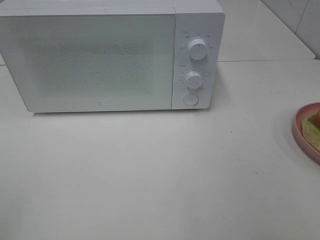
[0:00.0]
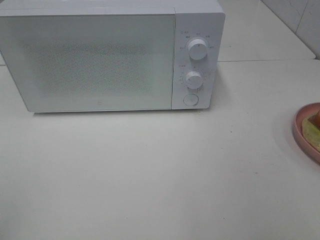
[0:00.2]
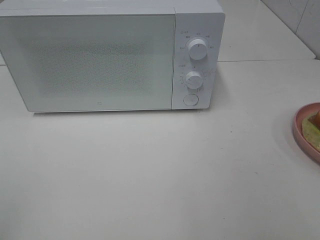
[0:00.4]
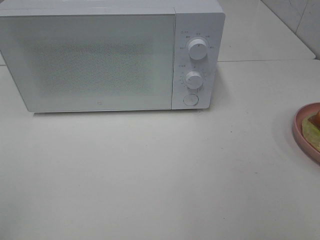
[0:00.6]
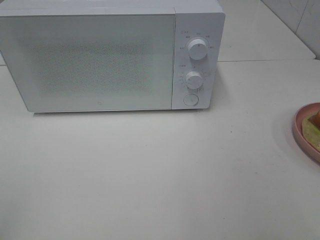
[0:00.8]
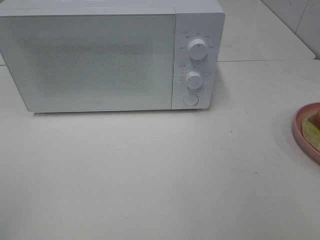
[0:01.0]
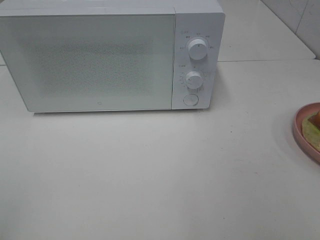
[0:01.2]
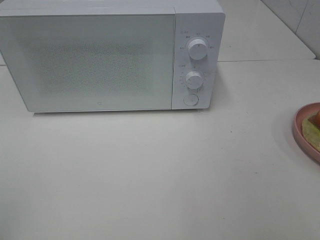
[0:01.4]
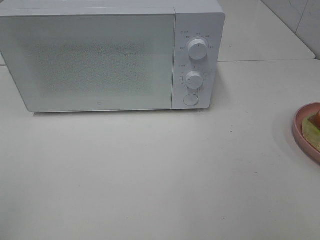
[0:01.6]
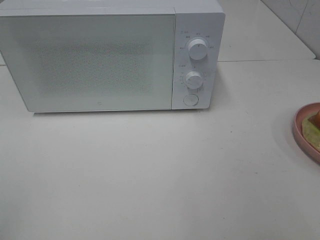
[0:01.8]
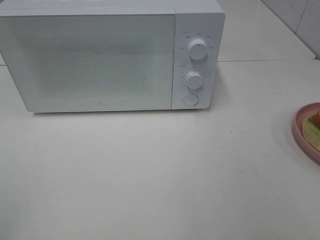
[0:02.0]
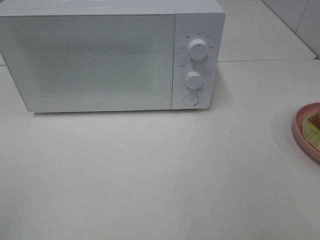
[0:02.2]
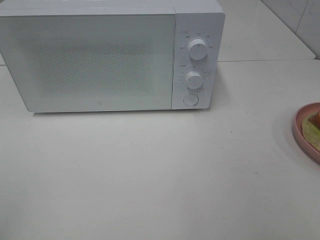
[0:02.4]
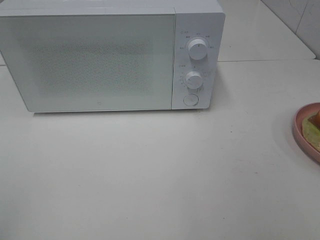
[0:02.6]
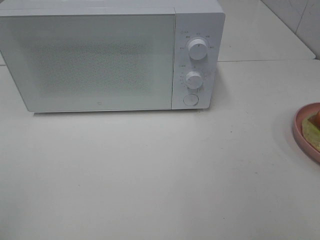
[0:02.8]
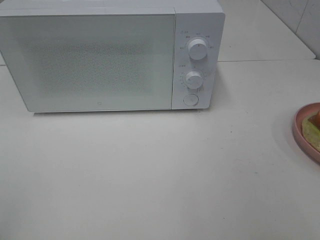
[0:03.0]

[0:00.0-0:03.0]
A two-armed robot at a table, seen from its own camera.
Task of the whole recording: Heat Sandwich.
0.0 to 3.0 s: Both grippers stay about where they are.

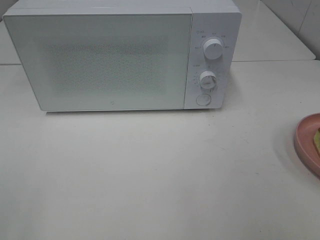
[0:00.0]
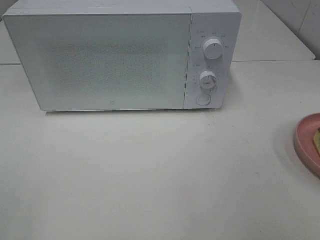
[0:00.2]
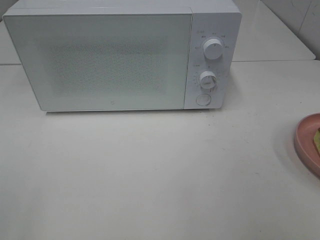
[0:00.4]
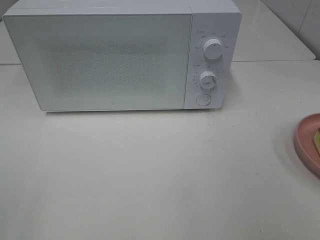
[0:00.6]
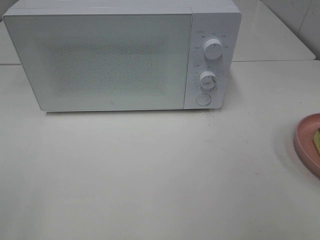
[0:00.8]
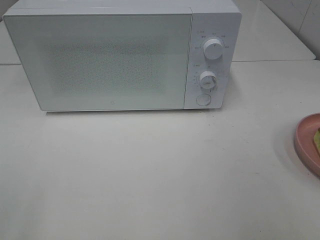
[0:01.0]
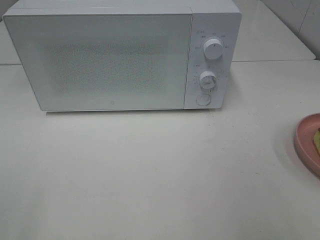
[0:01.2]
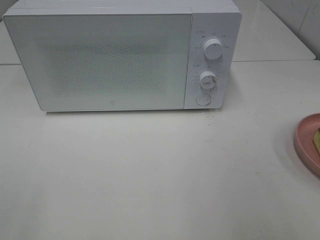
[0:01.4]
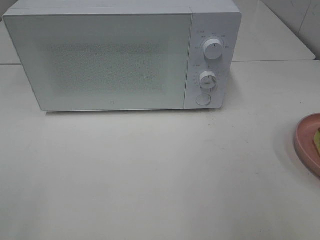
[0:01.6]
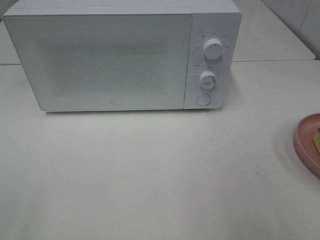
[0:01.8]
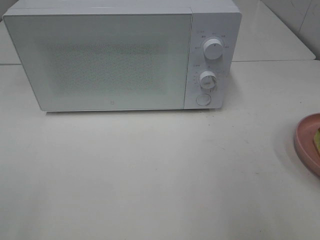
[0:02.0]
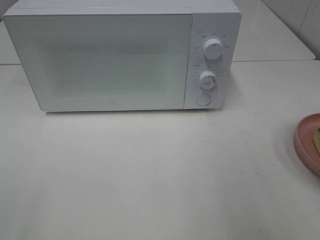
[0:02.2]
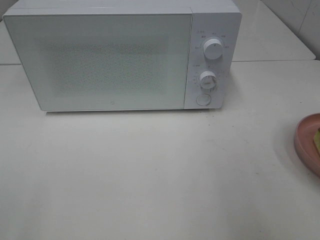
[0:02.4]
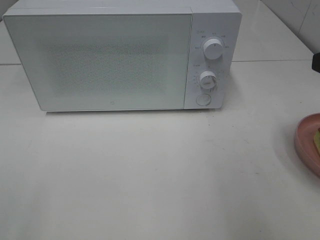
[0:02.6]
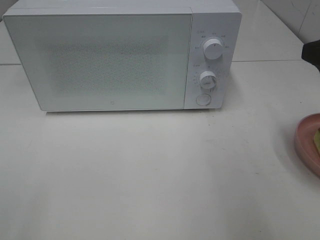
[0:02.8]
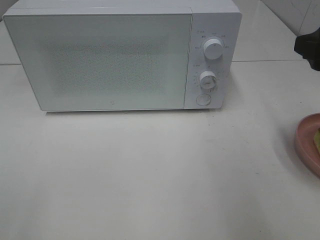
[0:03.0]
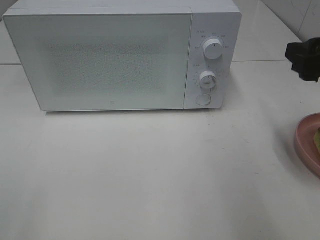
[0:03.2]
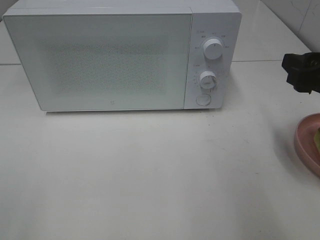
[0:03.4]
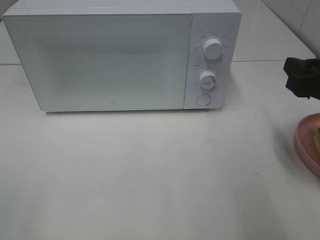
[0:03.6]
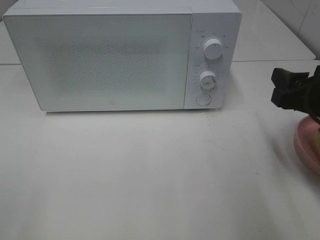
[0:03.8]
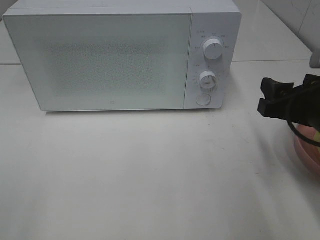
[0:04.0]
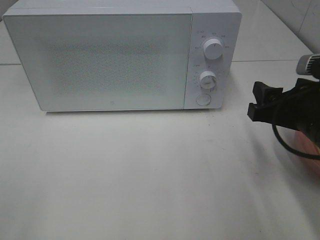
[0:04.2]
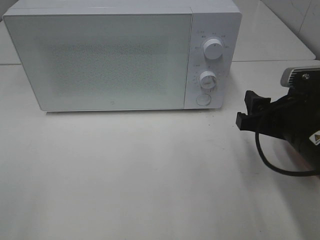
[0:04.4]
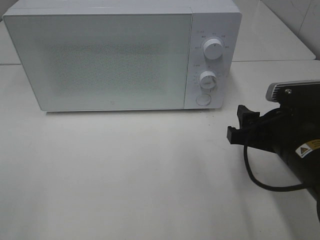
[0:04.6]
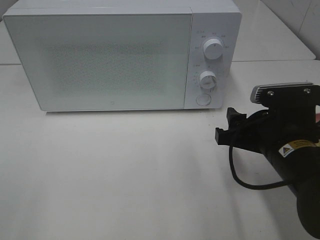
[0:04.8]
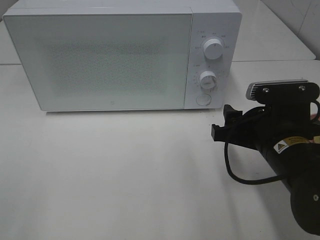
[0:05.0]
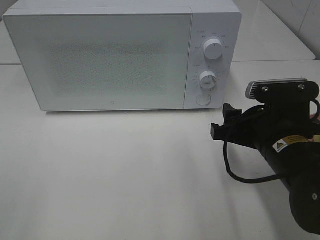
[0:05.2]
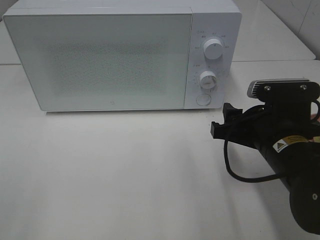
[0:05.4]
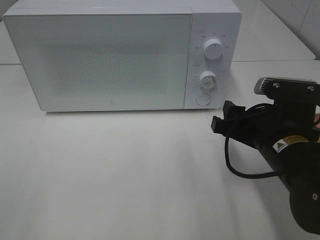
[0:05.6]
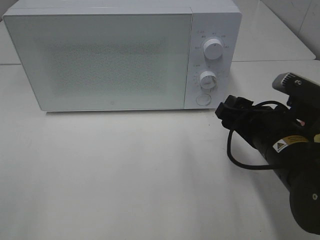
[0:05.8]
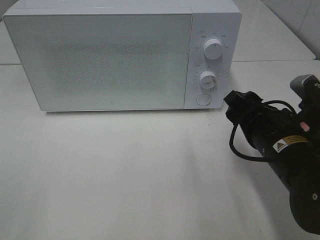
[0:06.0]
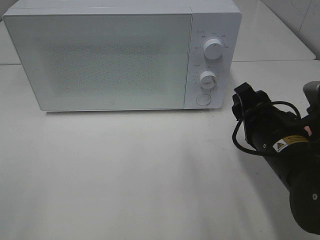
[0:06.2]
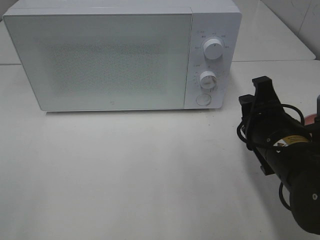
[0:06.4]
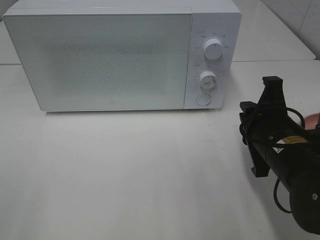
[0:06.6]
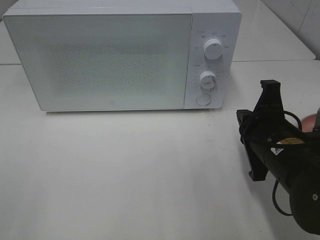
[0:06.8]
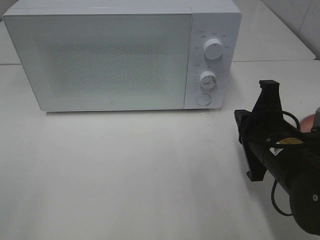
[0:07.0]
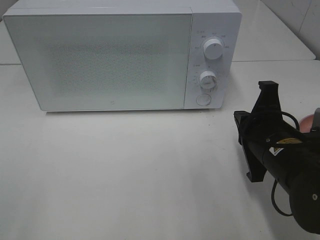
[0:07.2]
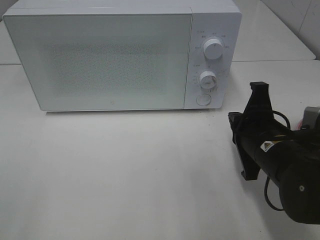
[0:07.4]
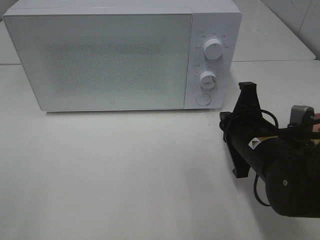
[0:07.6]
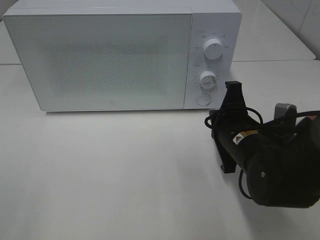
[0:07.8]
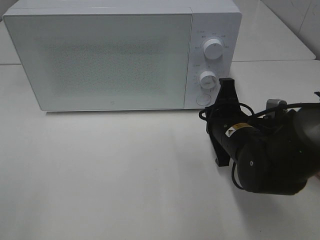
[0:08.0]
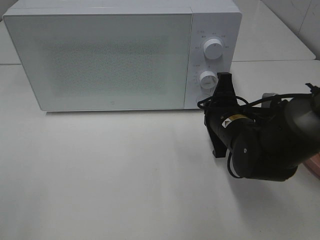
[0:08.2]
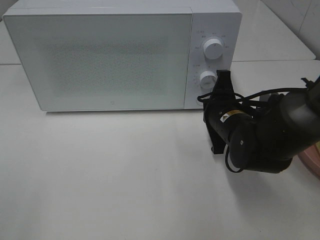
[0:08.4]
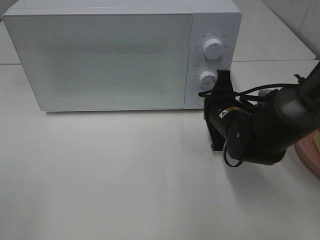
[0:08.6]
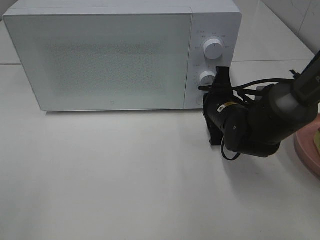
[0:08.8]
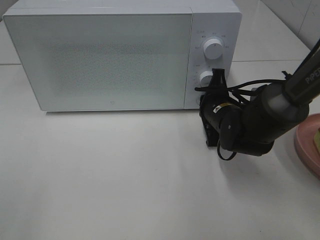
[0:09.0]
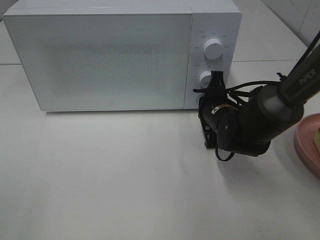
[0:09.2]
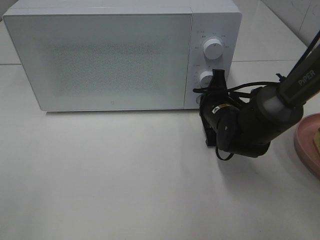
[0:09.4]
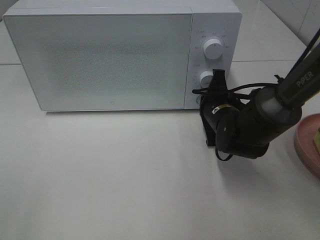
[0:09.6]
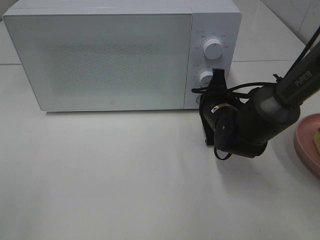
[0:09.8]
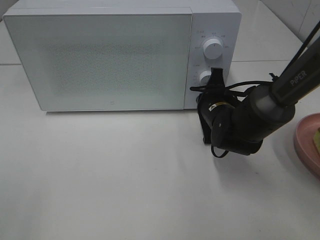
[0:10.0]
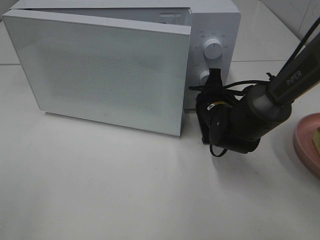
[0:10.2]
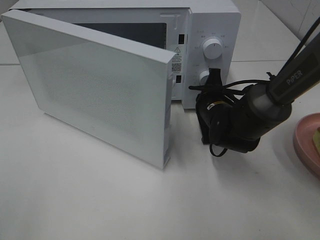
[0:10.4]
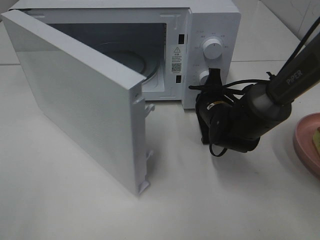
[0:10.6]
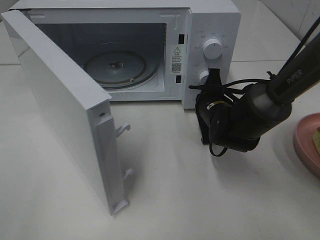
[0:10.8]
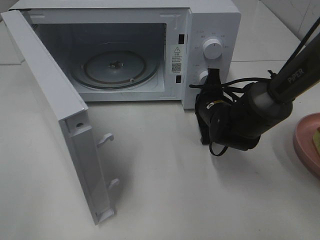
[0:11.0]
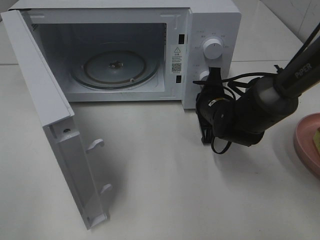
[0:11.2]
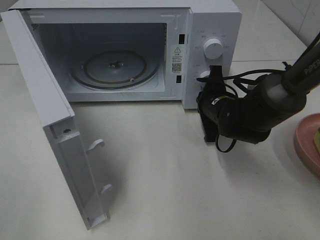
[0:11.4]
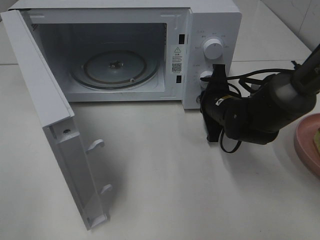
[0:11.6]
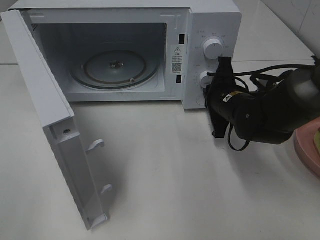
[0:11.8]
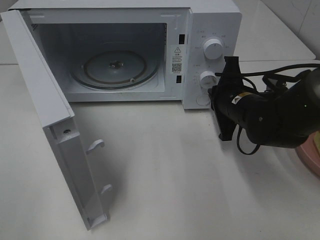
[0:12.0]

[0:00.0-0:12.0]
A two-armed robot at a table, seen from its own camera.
Task of the whole recording: Heat Sandwich.
1.6 to 3.0 s: The right gripper is displaced forward by roughly 15 cm.
3.0 to 4.4 s: The right gripper heads downward and to the left, covering some 15 cm.
6.0 to 7.6 s: The right gripper closes up.
7.6 to 9.0 s: The right gripper travels forward by approximately 10 cm.
9.0 to 10.4 s: The grippers move only a little.
10.4 to 12.0 s: The right gripper changes place by some 5 cm.

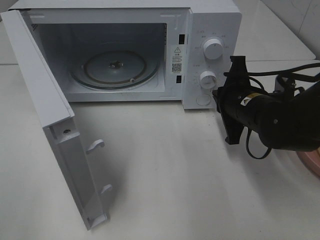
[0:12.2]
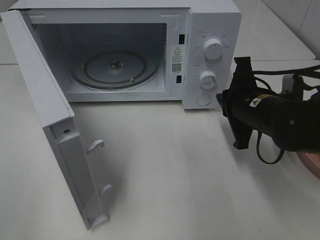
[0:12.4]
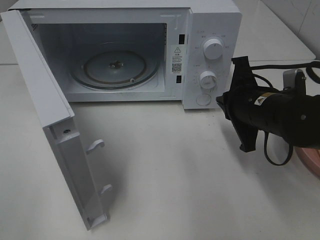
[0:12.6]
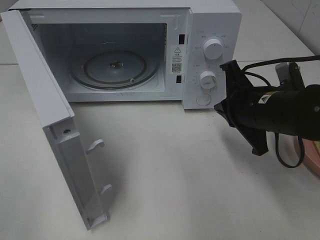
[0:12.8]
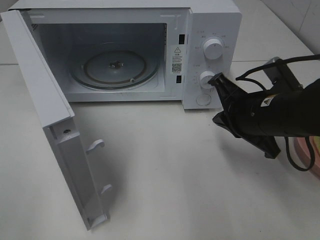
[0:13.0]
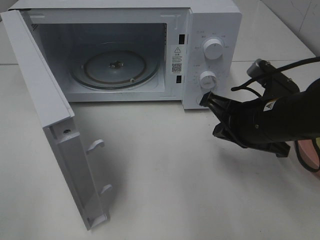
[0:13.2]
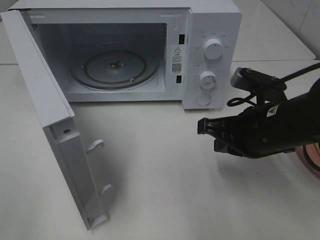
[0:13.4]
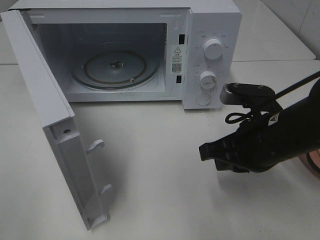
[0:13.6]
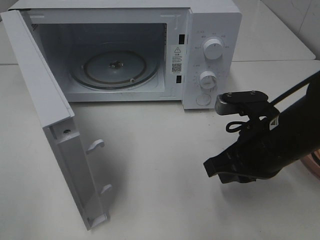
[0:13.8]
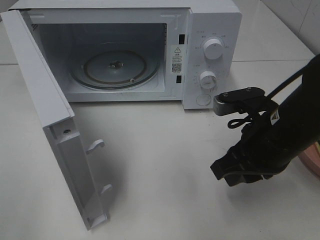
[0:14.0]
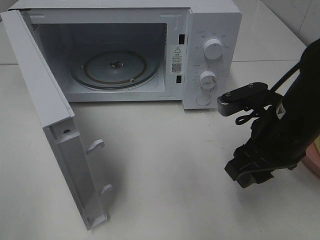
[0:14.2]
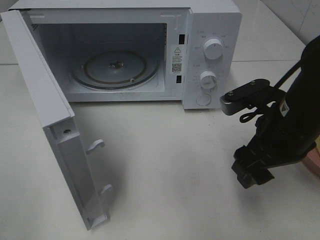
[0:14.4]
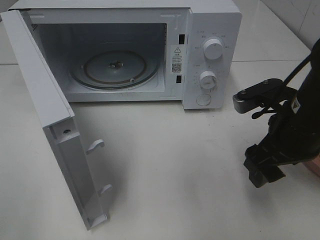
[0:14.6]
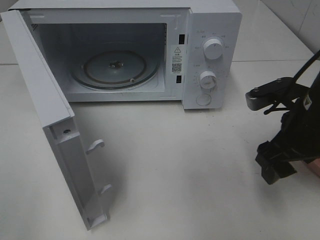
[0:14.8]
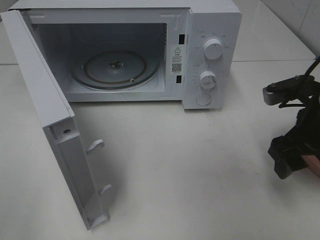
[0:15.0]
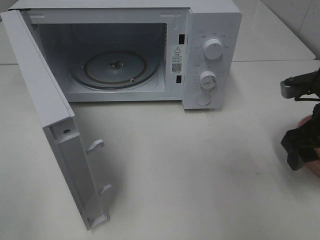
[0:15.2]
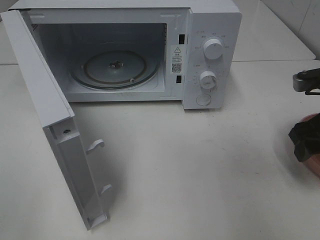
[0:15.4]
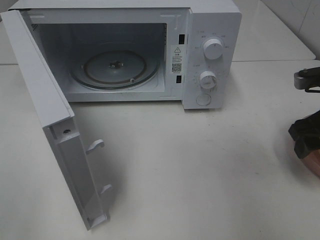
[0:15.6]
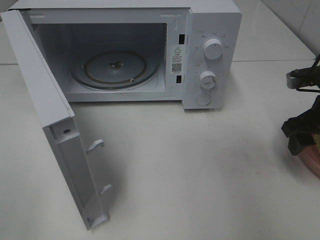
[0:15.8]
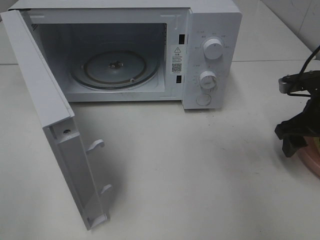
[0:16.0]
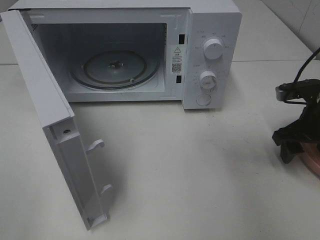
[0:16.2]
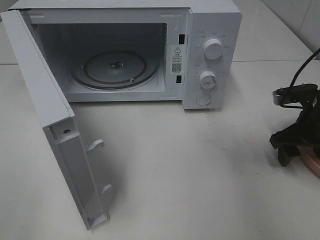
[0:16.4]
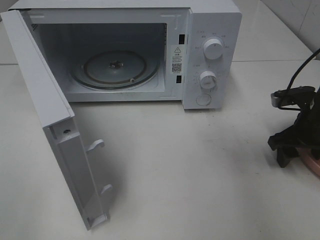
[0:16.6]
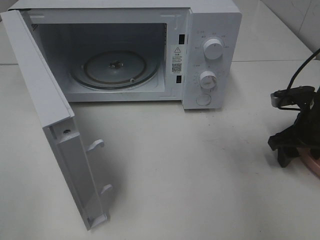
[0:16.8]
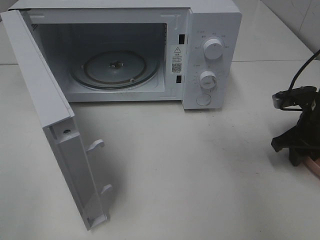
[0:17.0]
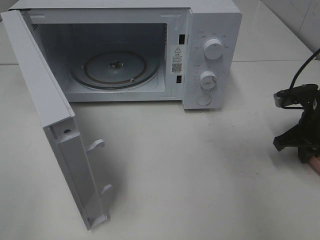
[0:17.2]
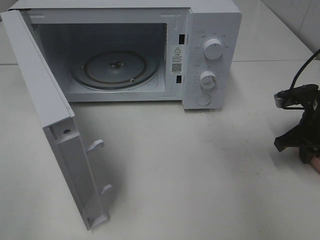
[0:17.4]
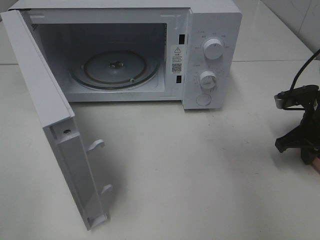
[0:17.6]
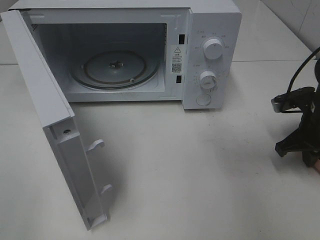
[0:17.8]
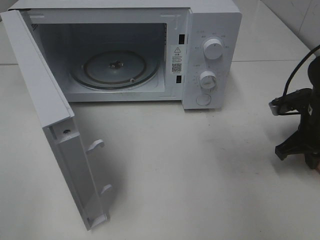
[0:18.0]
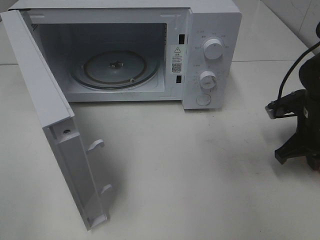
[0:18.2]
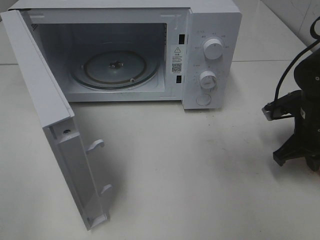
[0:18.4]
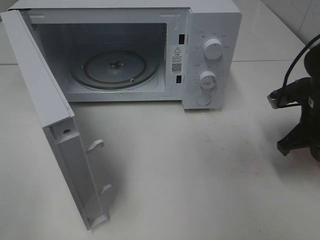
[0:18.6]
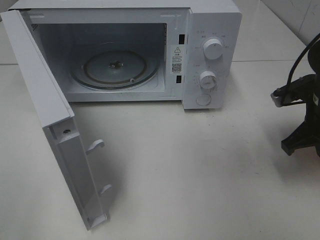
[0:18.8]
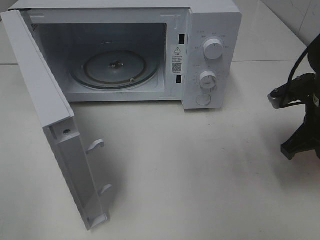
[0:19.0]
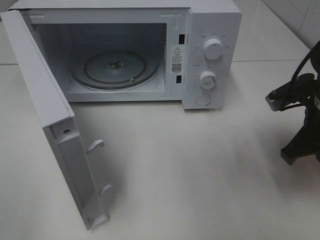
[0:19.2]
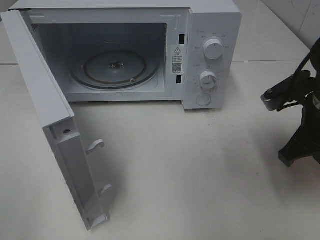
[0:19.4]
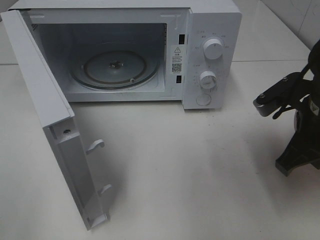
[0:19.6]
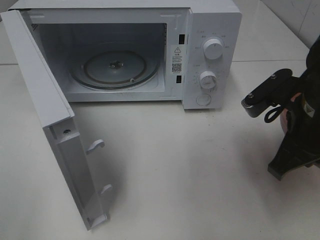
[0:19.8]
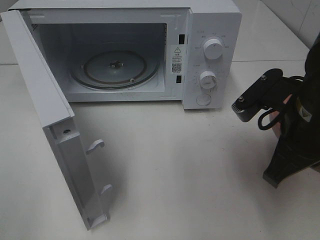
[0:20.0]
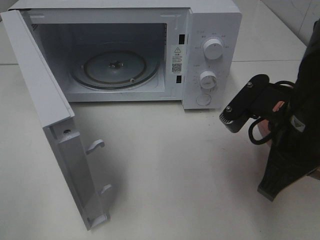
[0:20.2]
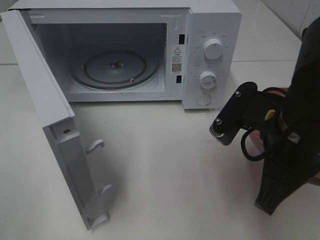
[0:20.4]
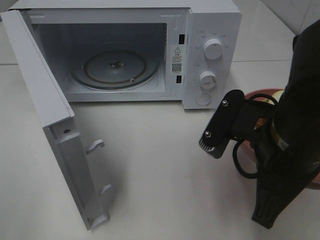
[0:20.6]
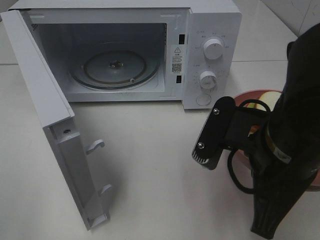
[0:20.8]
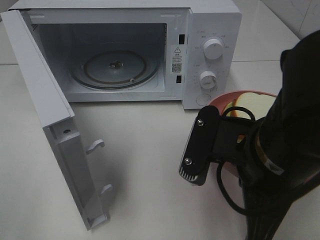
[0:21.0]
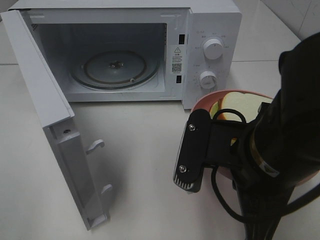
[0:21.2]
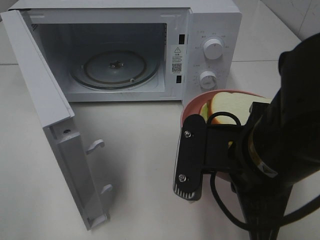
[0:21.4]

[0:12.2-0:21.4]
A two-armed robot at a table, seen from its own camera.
Task of the whole recording: Heat Sandwich.
Step, 12.2 to 17.8 s: Right hand: grab the plate with the sandwich.
12.2 to 13.8 s: The right gripper moves backward, about 10 cm.
13.8 to 15.2 s: The right gripper goes approximately 10 cm to the right, and opens up.
15.2 to 16.8 s: The right gripper is displaced downward and forward by some 10 cm.
16.8 to 18.4 s: The right gripper closes up.
18.4 to 19.8 s: The right gripper heads upward, backward and to the left, covering roughly 15 cm.
19.8 to 21.4 s: The right gripper shifts about 10 cm to the left and backward.
